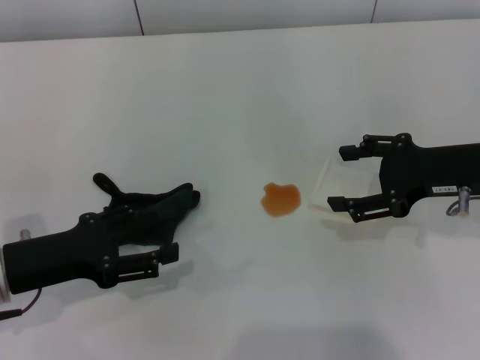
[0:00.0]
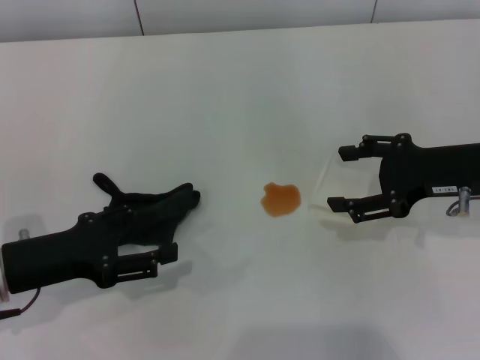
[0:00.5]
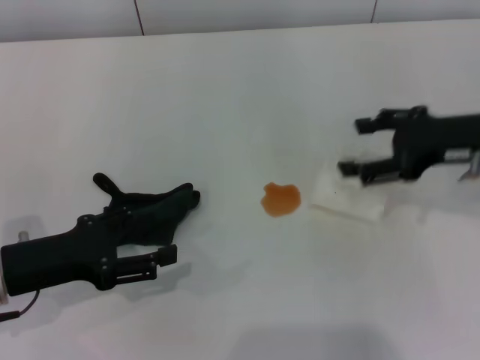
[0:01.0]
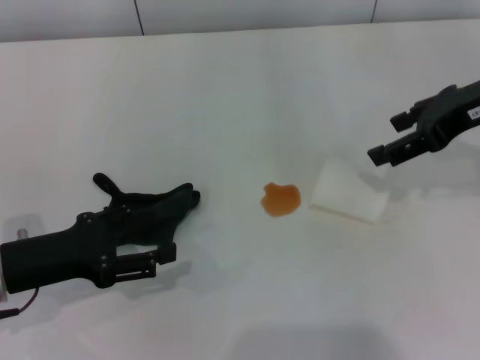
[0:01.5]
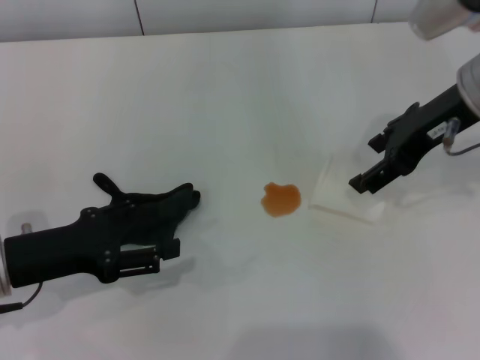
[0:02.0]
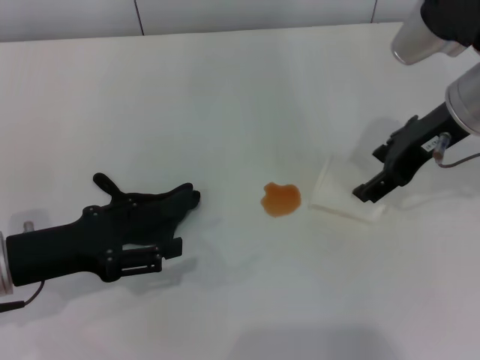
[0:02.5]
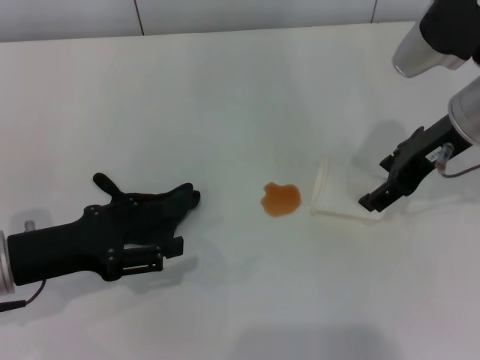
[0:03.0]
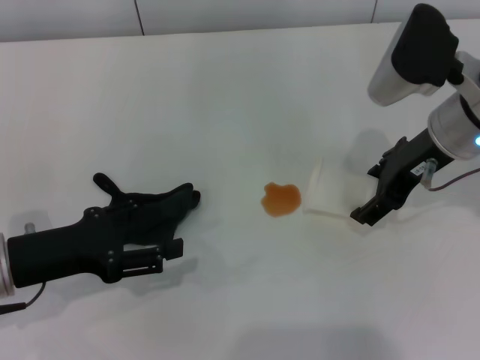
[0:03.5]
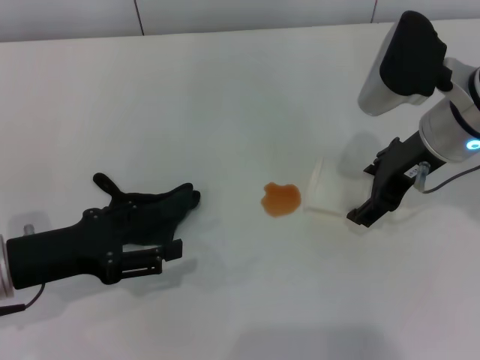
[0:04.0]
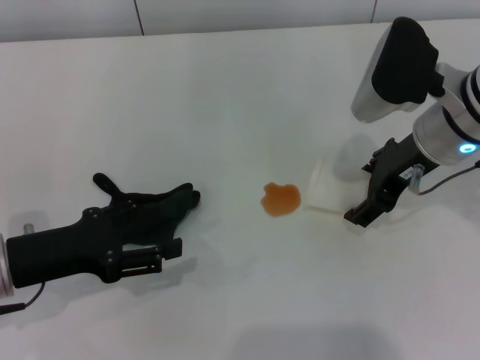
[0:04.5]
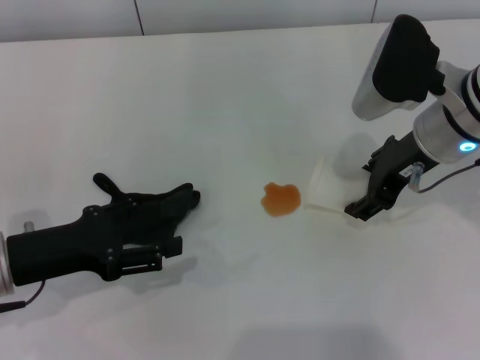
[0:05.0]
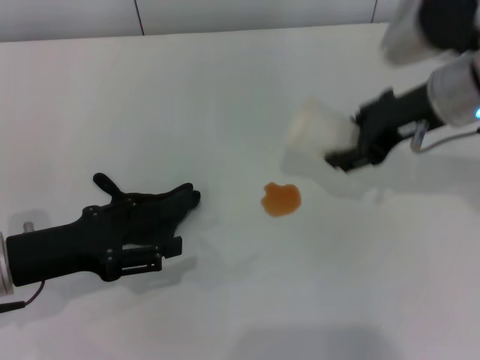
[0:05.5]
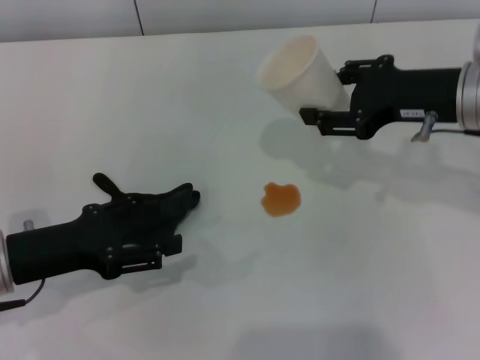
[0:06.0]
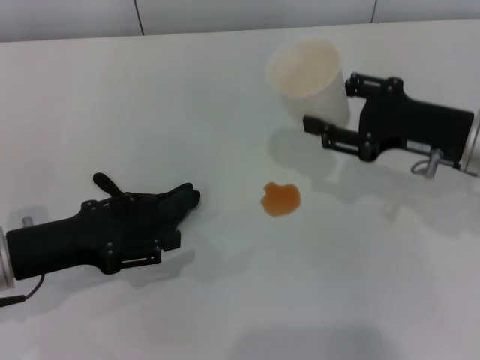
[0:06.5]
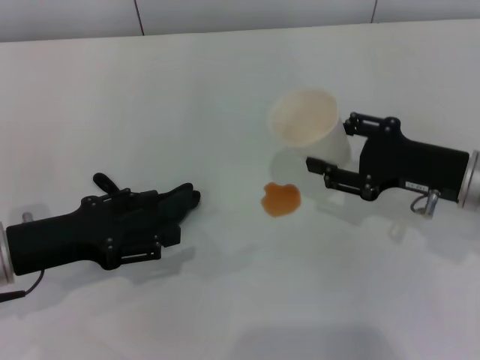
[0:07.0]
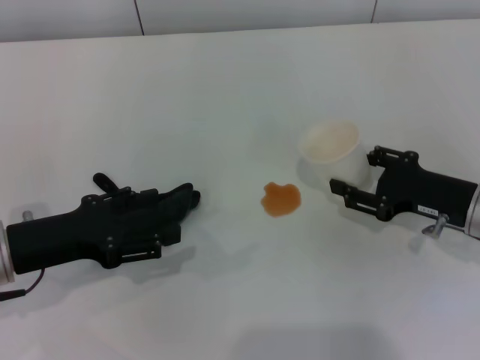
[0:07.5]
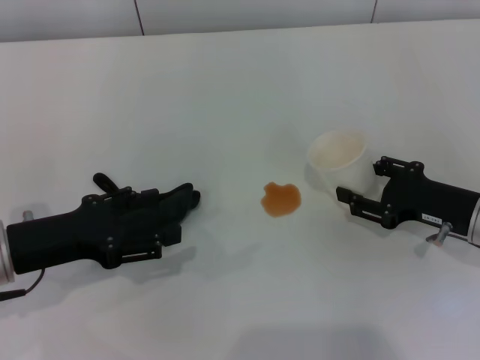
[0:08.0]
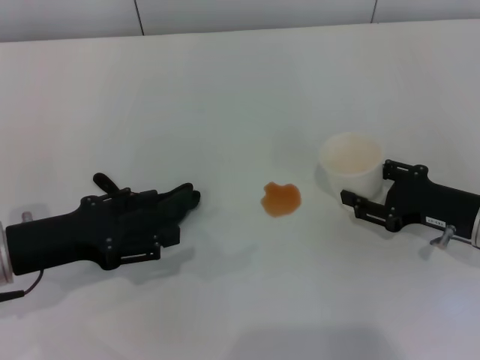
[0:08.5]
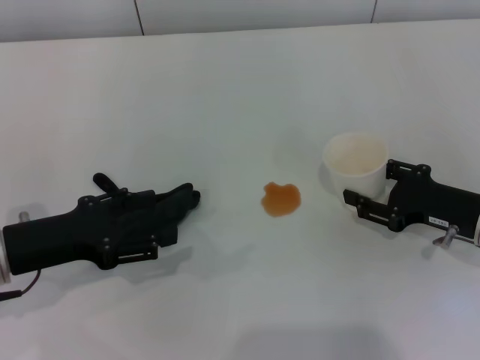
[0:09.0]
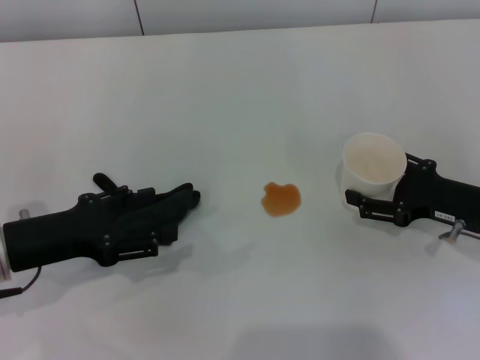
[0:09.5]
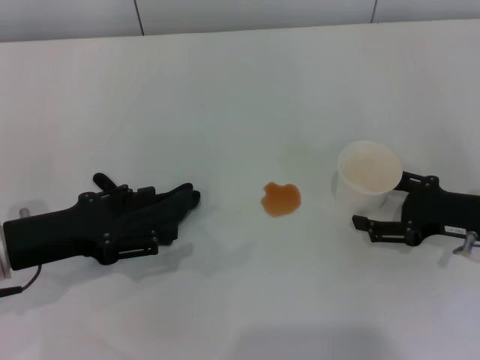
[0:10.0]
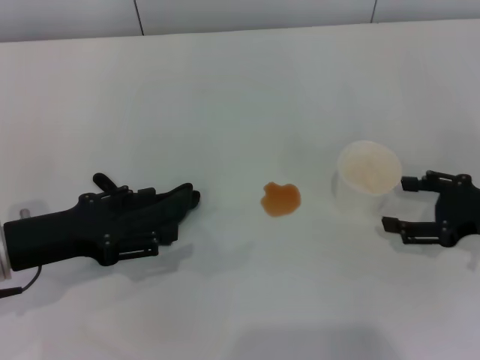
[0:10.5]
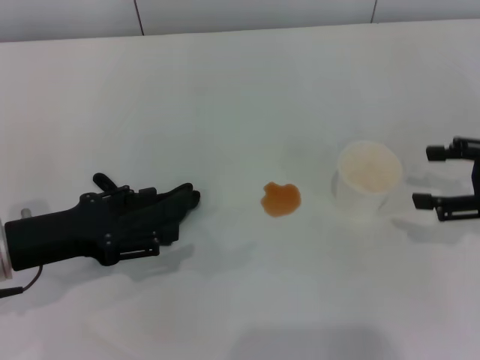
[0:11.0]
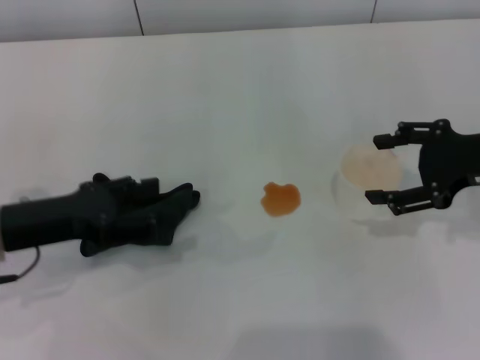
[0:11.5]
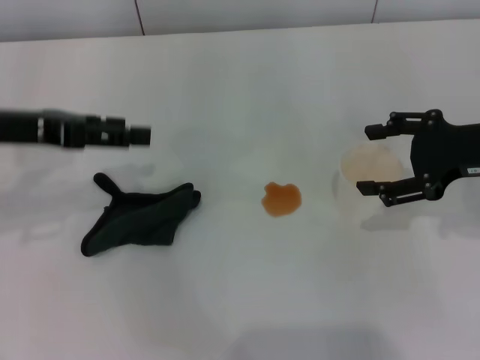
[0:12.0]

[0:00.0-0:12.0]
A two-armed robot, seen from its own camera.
Step, 0:00.0 to 0:05.0: Grasp the paper cup with the right gripper.
Step, 0:05.5 to 0:10.5: Stand the paper cup upright with the right gripper.
0:00.0 to 0:02.0: The right gripper shifts approximately 10 cm upward and to the left.
0:02.0 to 0:04.0: The right gripper shifts by roughly 5 cm.
0:04.0 to 0:06.0: The right gripper closes.
0:06.0 to 0:08.0: The right gripper travels downward by some 15 cm.
0:08.0 to 0:10.0: The right gripper opens.
0:10.0 to 0:12.0: The left gripper heads upward and forward, covering some 15 cm, while the right gripper shifts approximately 10 cm upward.

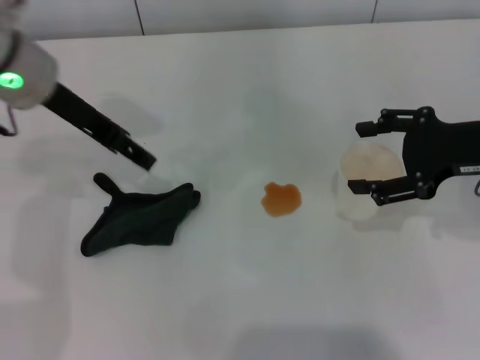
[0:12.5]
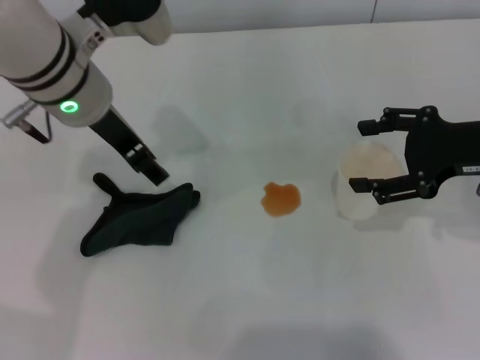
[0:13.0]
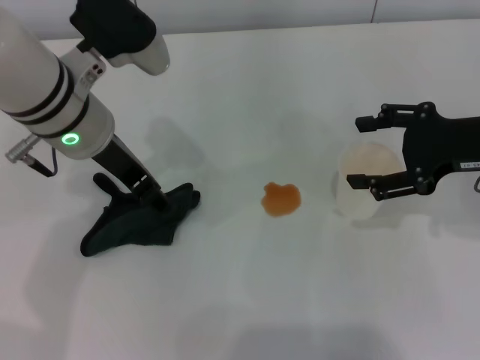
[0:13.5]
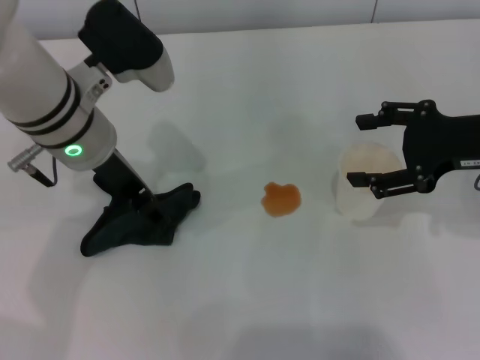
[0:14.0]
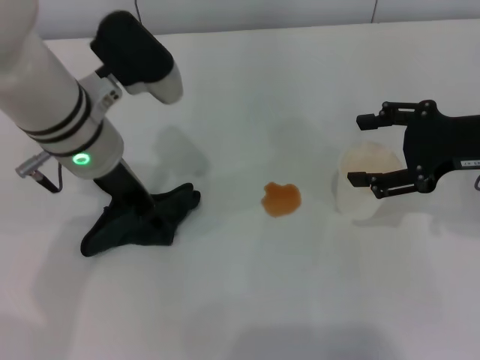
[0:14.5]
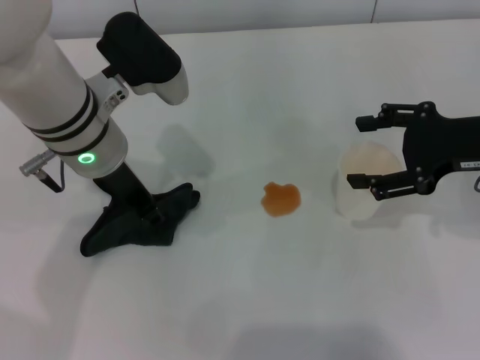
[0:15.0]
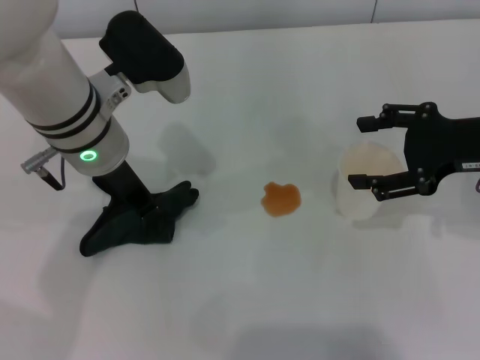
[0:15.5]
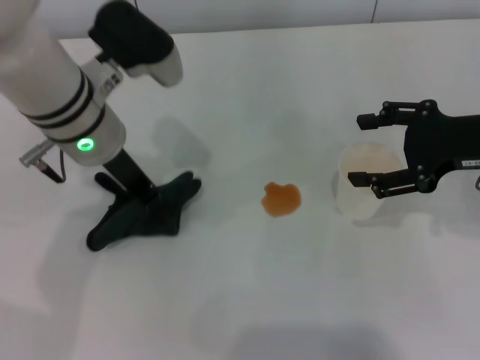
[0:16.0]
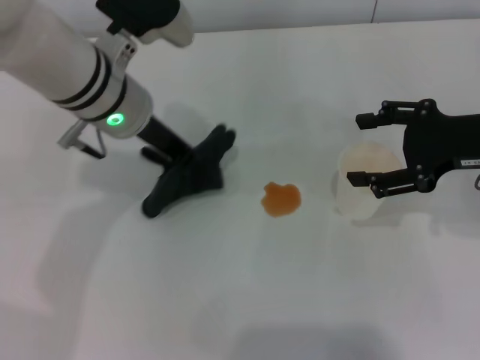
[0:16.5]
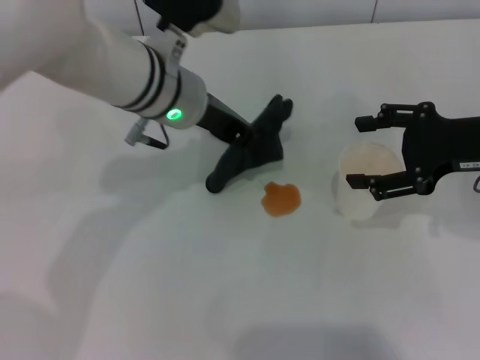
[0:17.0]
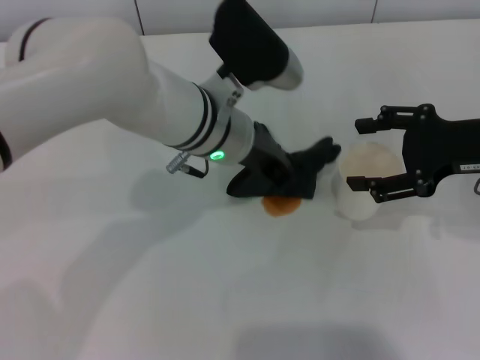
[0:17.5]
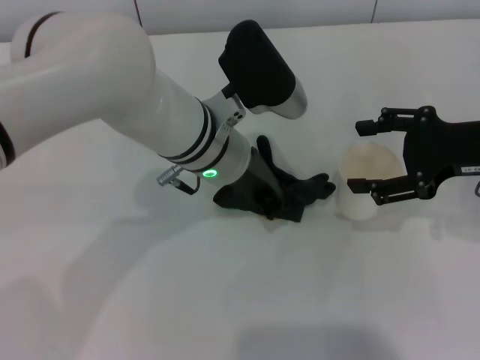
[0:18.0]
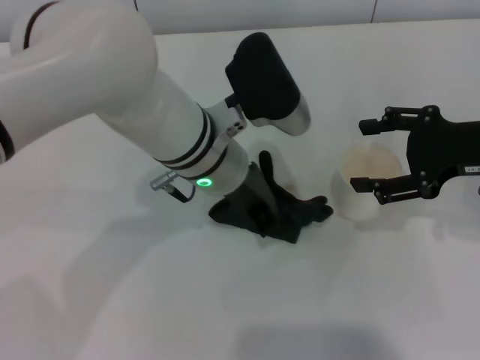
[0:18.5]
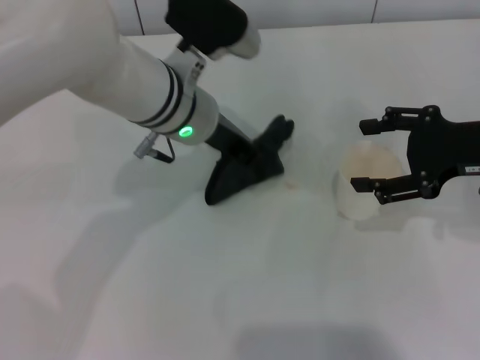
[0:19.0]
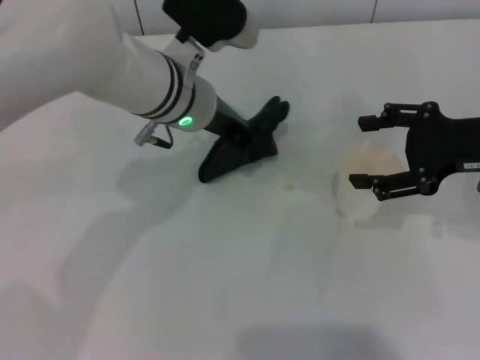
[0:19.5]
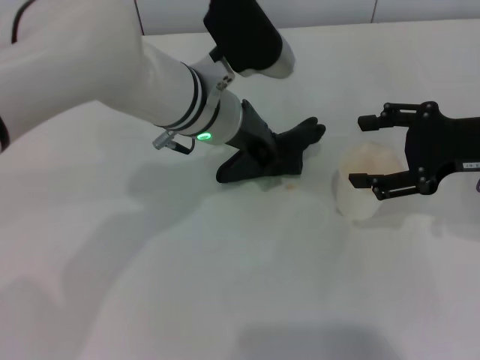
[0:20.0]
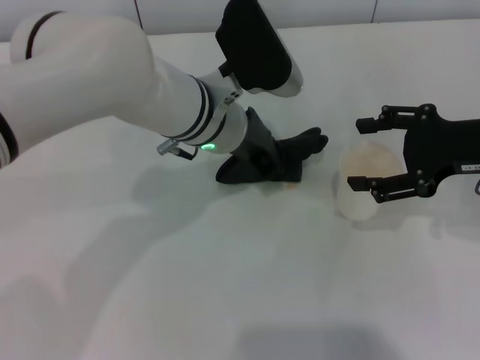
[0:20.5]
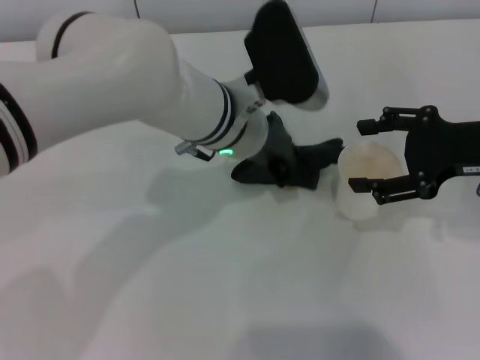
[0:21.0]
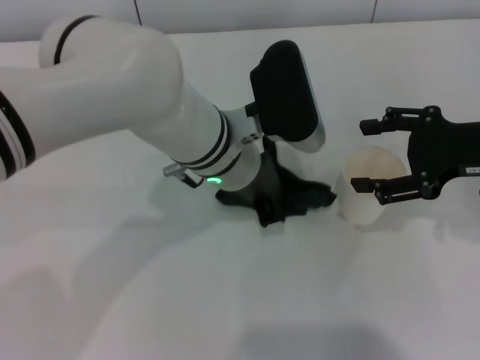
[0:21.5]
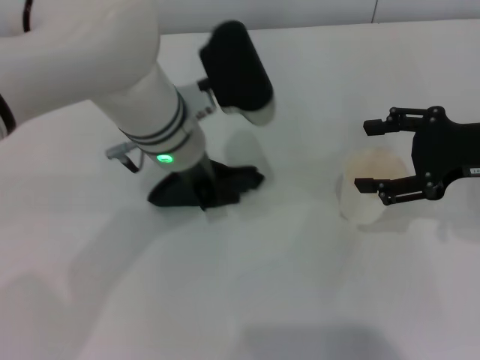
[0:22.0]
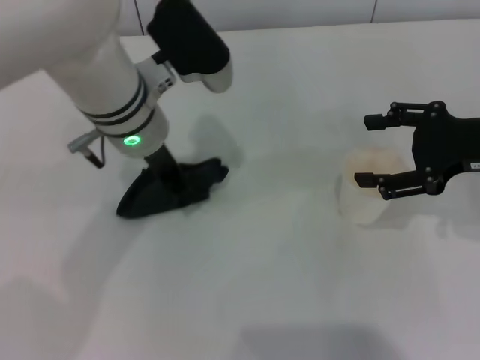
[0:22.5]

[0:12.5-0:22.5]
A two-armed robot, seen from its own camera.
Step, 0:12.5 to 0:15.5: Grasp the rag with the left gripper.
Step, 0:16.0 to 0:22.0: Wipe the stains off the table with the left gripper.
0:12.5 to 0:14.5: The left gripper goes about 5 cm to the right and downward.
0:14.5 to 0:16.5: The left gripper closes up.
0:16.5 to 0:18.5: The left gripper travels to the right by approximately 10 cm.
0:20.5 to 0:22.5: The left gripper is displaced to the left by approximately 5 cm.

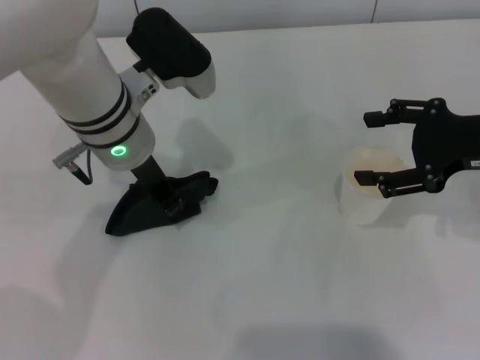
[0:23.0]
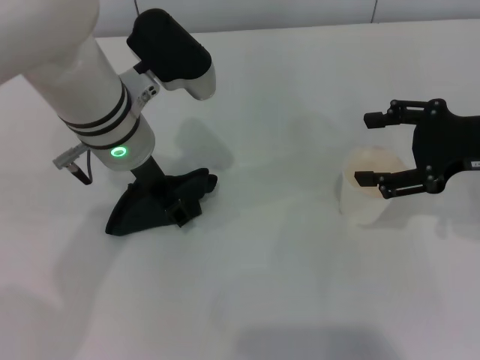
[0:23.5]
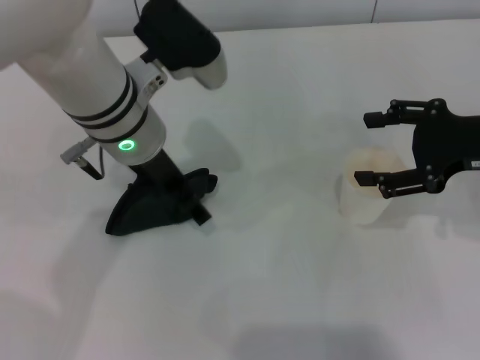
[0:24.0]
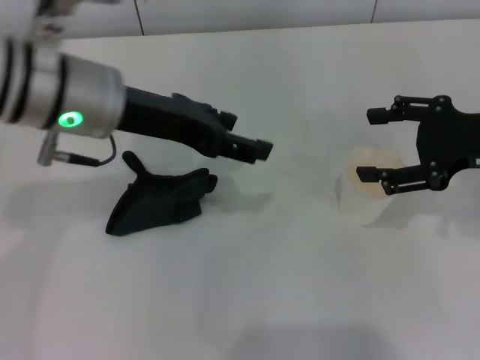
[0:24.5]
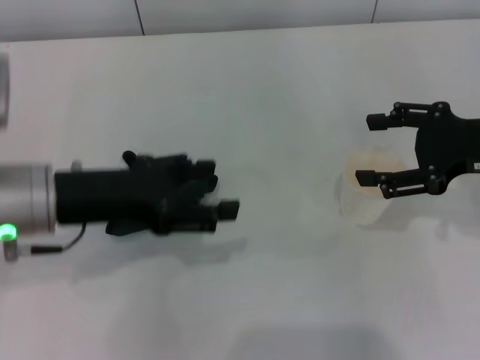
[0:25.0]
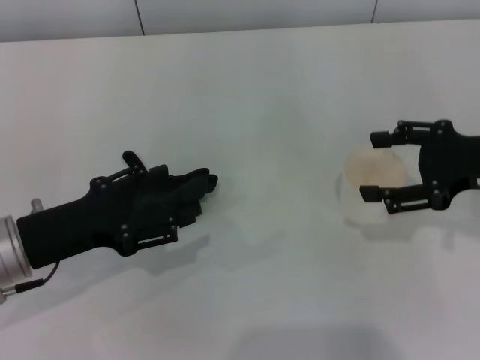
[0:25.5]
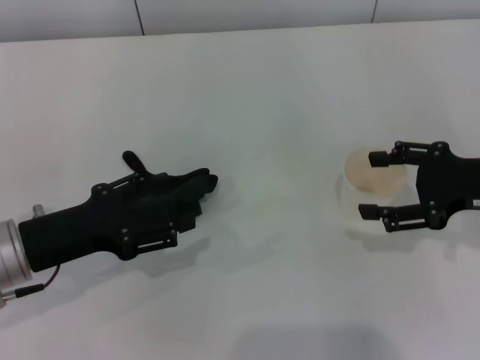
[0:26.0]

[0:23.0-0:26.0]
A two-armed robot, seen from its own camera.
Step, 0:23.0 to 0:24.0: Place the rag on the table with the left gripper.
0:23.0 to 0:24.5: The left gripper moves upward, approximately 5 cm, and opens.
0:24.5 to 0:26.0: The left gripper goes some 20 cm downward, to the left and backward.
